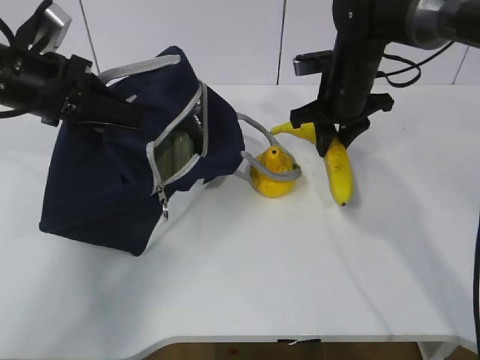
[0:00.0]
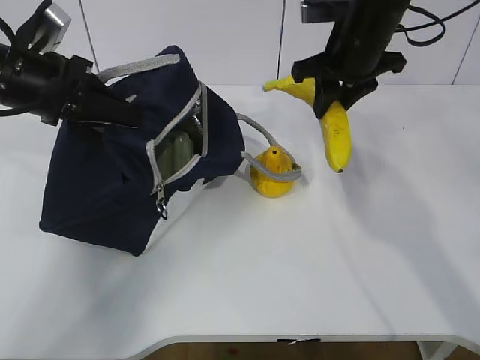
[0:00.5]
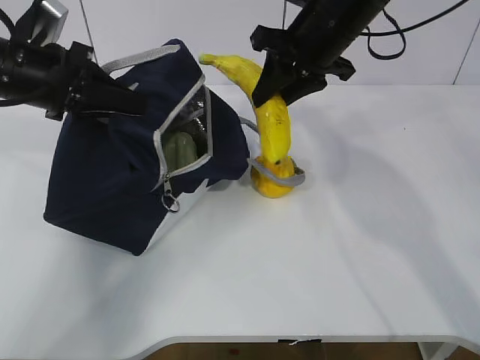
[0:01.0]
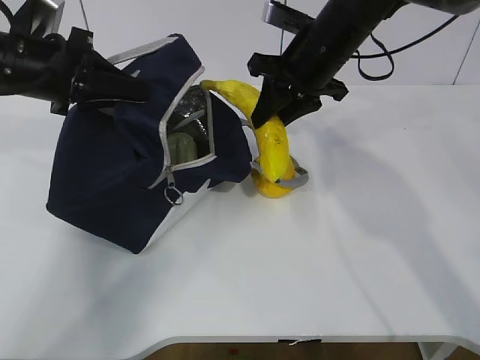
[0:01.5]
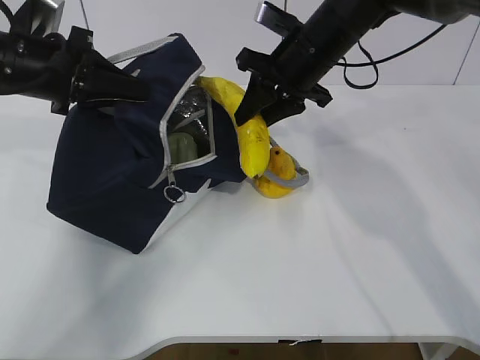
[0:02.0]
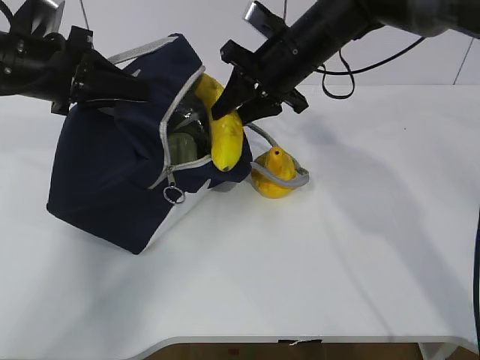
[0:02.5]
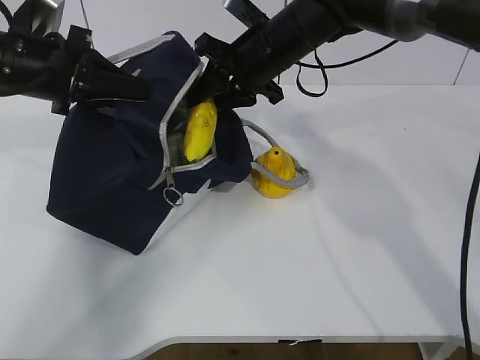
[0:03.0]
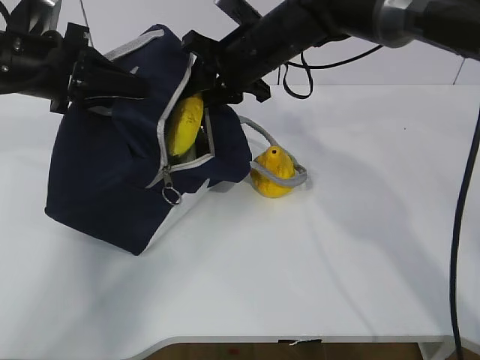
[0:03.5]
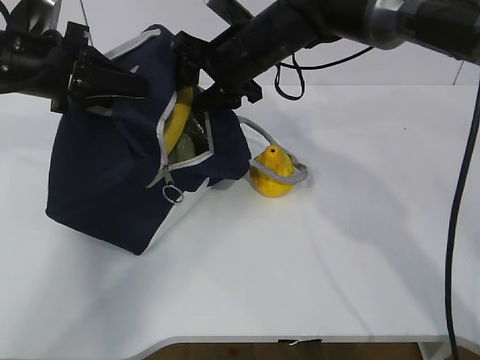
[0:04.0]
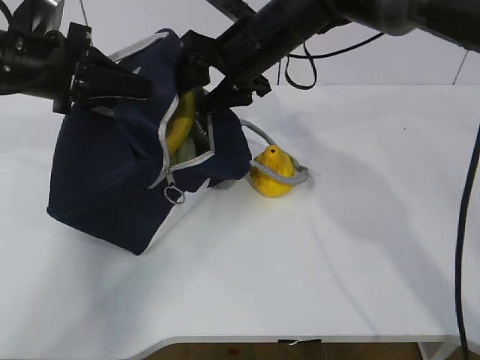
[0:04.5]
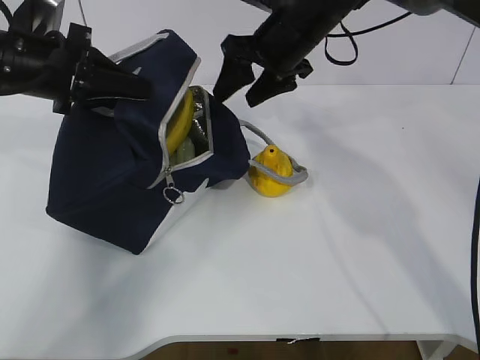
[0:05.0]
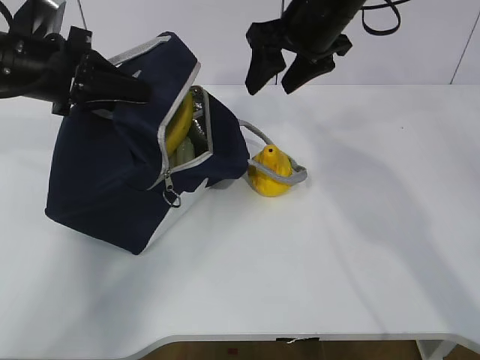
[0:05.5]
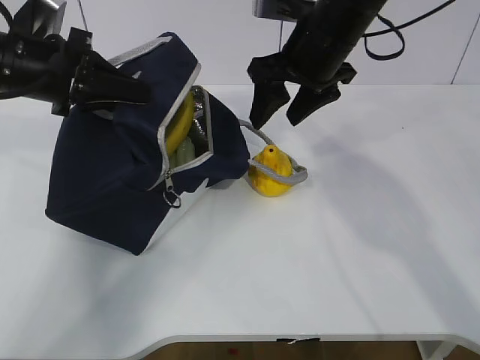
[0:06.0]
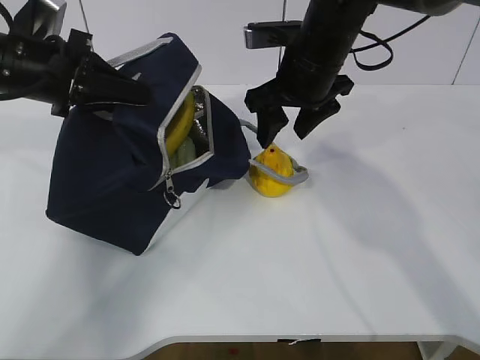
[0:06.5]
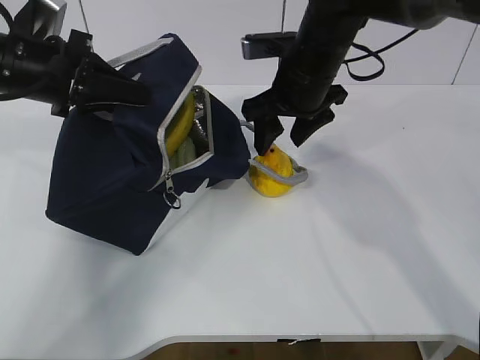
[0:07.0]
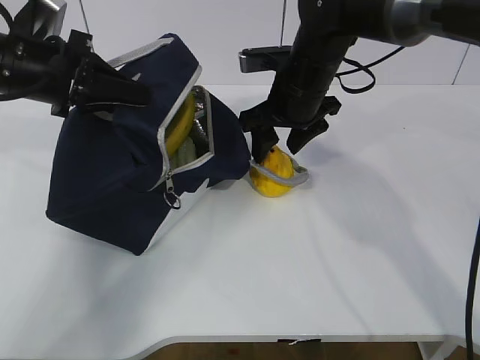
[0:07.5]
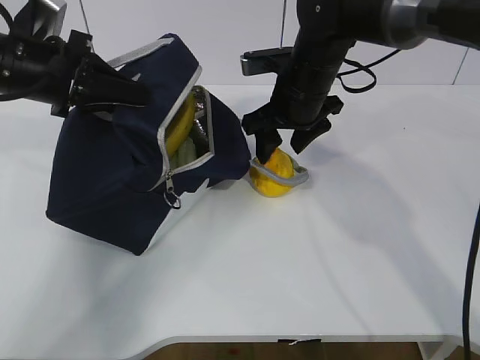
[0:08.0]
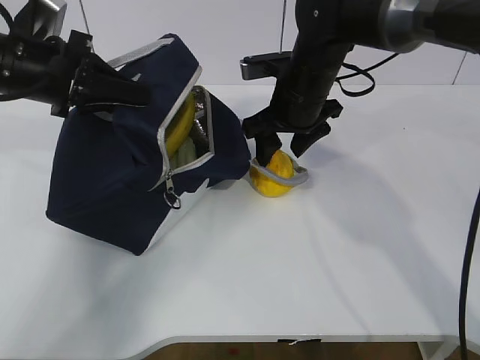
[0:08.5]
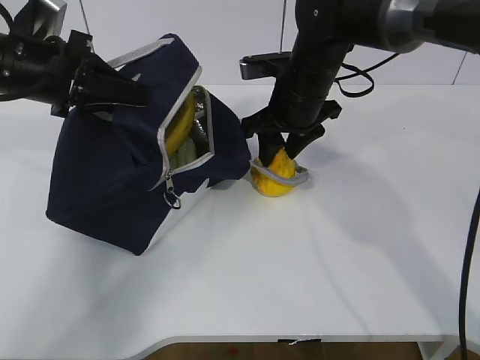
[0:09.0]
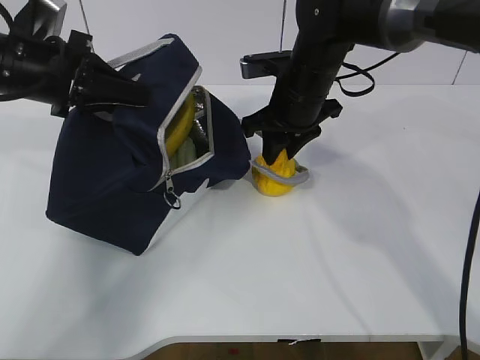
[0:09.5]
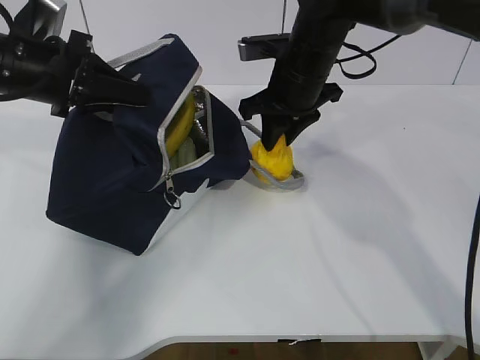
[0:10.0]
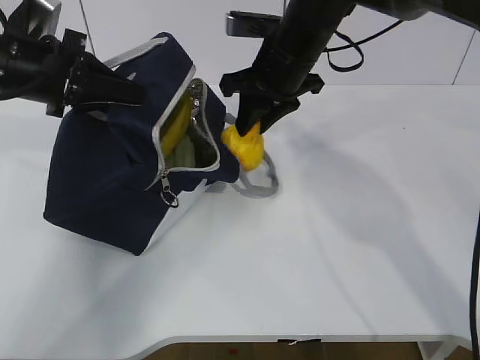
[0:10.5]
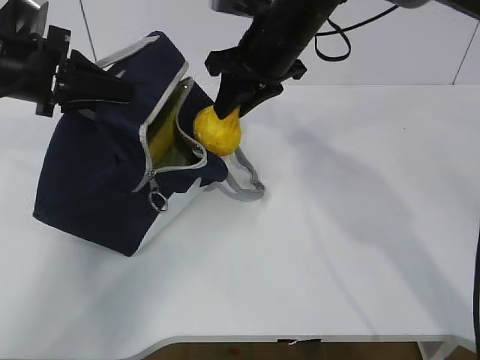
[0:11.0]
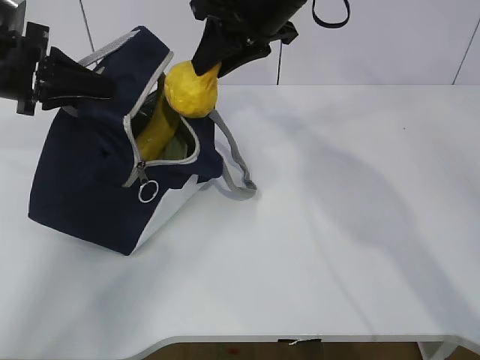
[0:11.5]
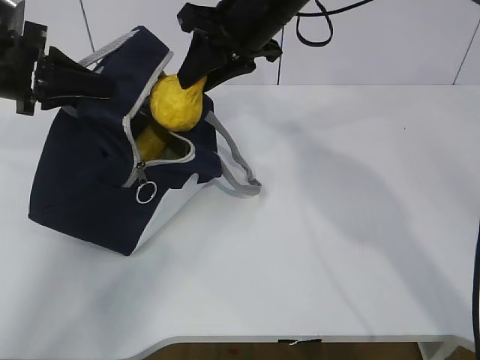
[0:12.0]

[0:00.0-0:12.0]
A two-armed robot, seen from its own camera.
Step, 0:00.0 to 0:02.5: Grab the pear with your right hand.
Step, 0:06.5 to 0:07.5: Grab the lunch bag with your right hand.
Step, 0:08.0 to 0:09.5: Move the lunch bag to the right.
0:00.0 to 0:02.0: The right gripper moves upward and to the left, some 10 cm.
0:02.0 to 0:04.0: The right gripper is displaced to the left by roughly 5 cm, and opens up.
0:04.0 to 0:06.0: The right gripper shifts approximately 5 cm to the right.
0:06.0 to 0:08.0: The right gripper moves downward, some 5 cm.
0:08.0 to 0:10.0: The right gripper closes up.
0:10.0 to 0:12.0: The right gripper moves upward, some 5 cm.

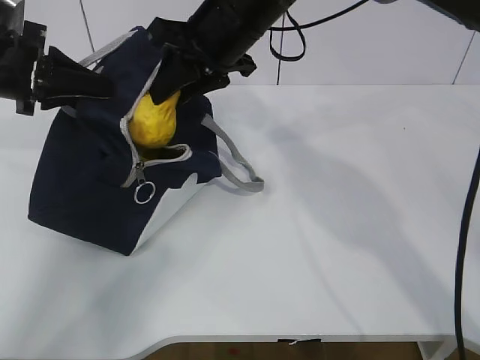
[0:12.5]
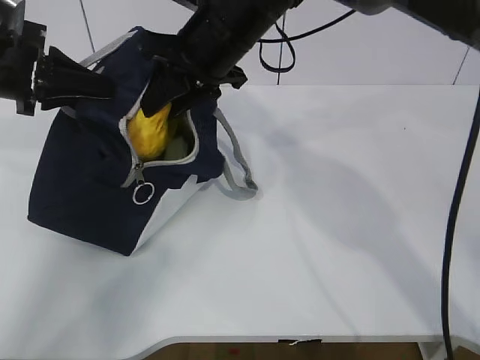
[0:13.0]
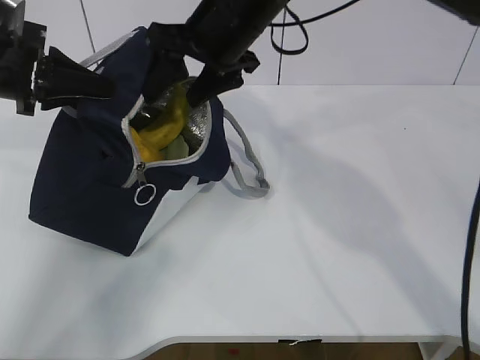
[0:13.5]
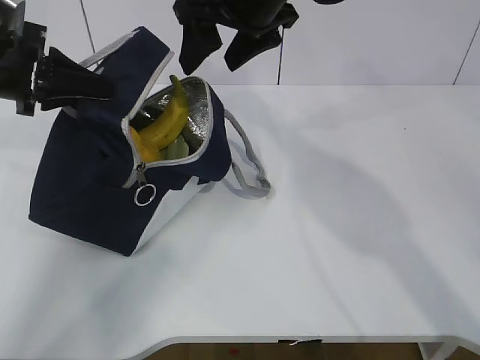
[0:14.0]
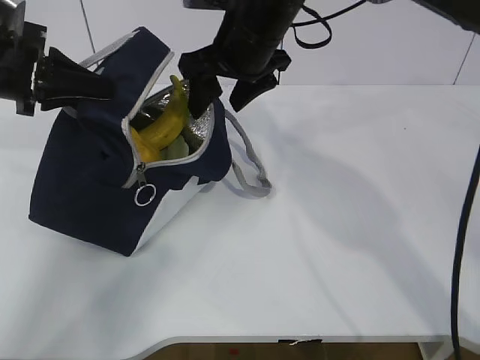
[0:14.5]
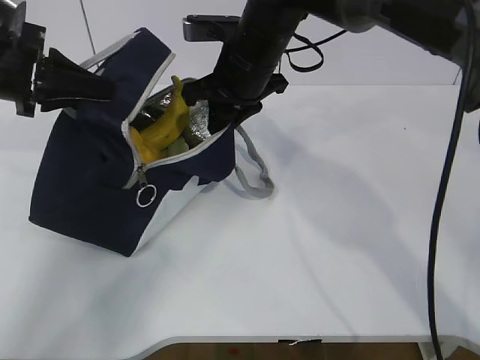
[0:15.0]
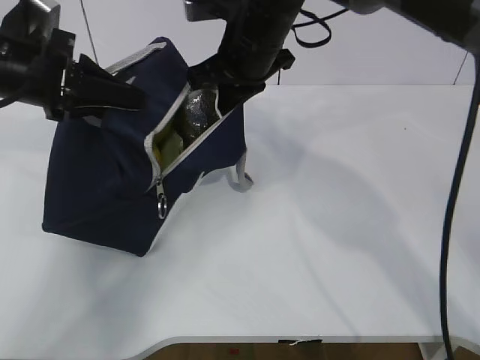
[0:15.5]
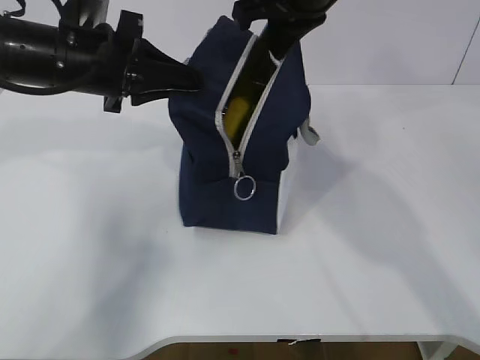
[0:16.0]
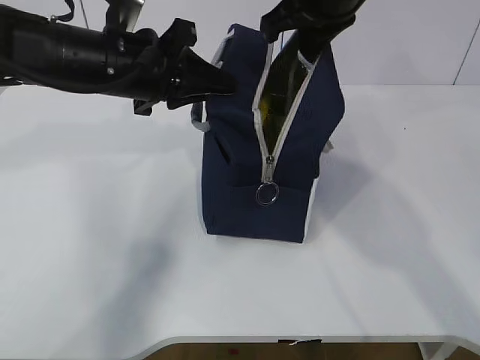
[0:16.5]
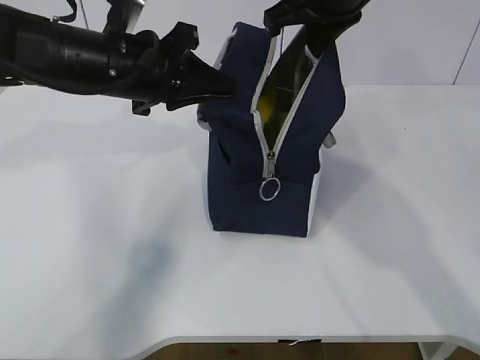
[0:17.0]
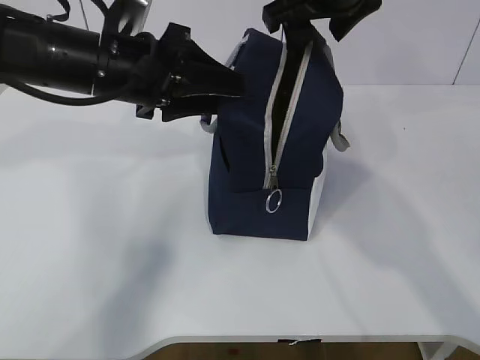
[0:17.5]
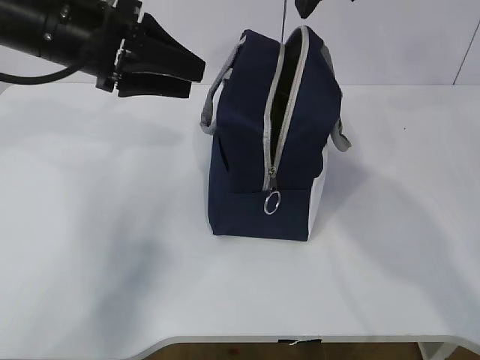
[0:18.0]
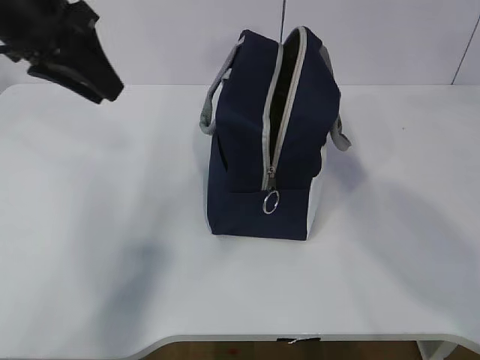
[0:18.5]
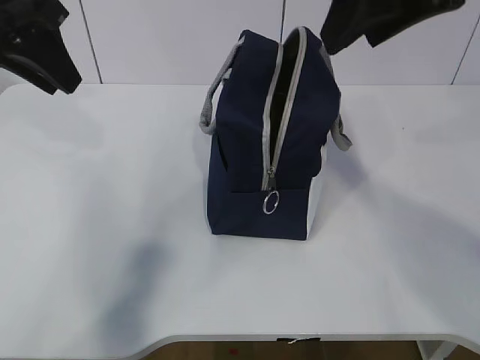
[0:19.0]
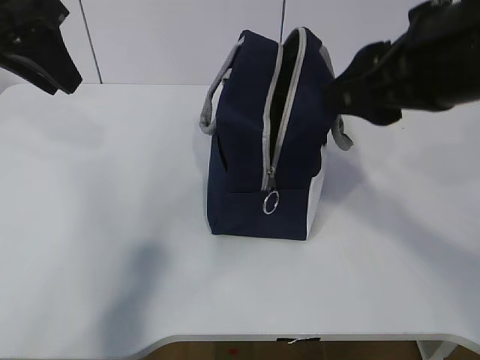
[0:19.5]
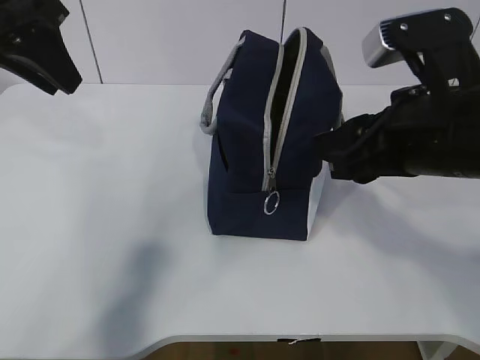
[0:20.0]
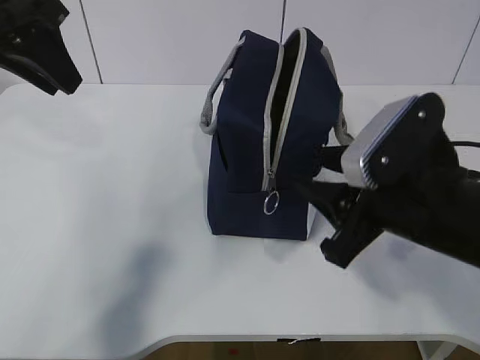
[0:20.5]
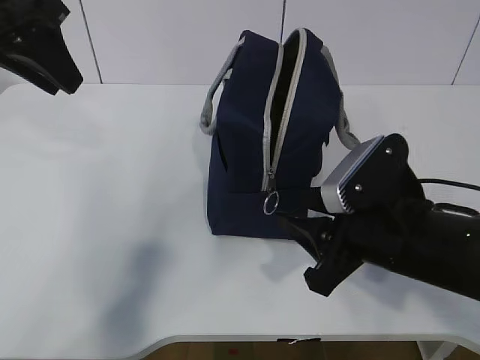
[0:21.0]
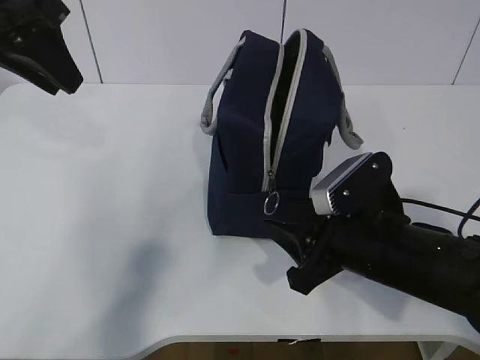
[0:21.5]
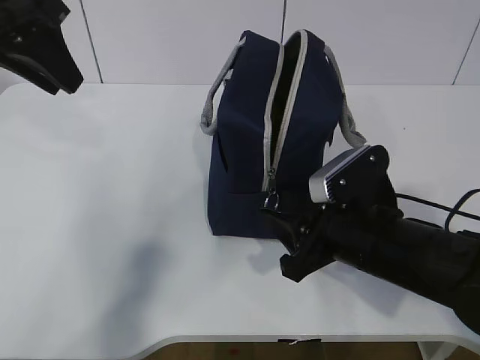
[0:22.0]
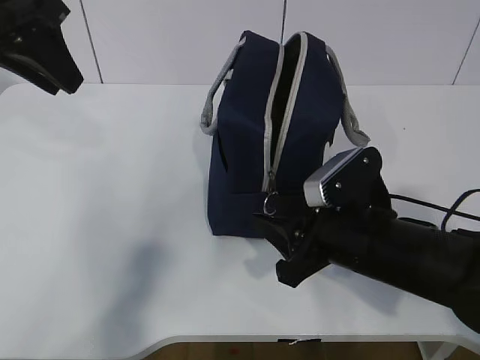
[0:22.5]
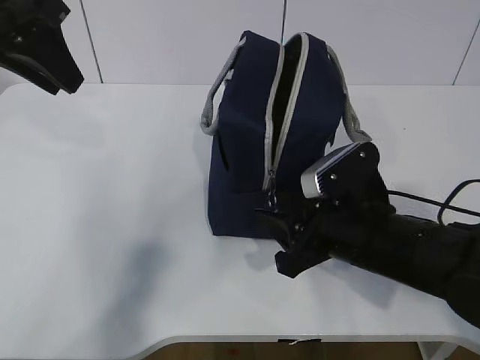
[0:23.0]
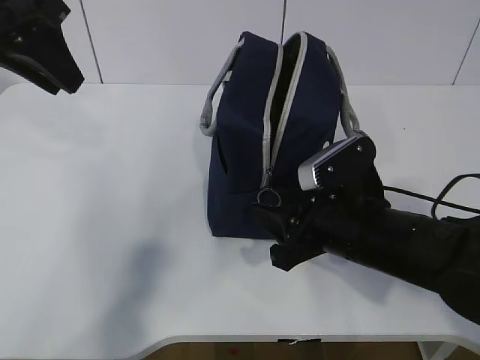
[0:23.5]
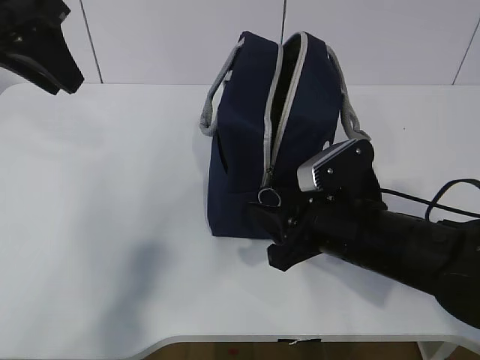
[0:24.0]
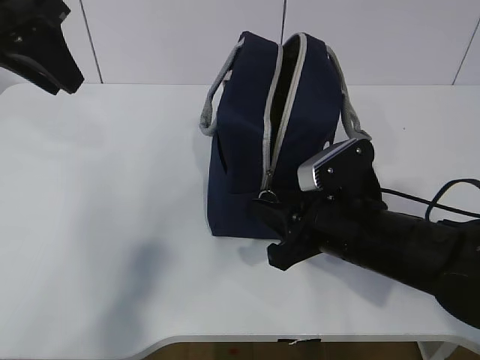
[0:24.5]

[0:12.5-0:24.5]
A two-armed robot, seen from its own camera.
Step, 0:12.5 to 0:22.5: Grab the lunch bag with your left hand.
0:12.5 to 0:14.5: The right gripper opens up.
0:14.5 to 0:16.5: The right gripper is displaced upward and to the right by approximately 10 cm, and closes up; the left gripper moves to the right, approximately 15 cm.
0:16.5 to 0:18.5: The right gripper travels upward and backward by about 15 cm, and opens its fingers, while the left gripper shifts some 10 cm to the left and upward, and opens its fingers.
0:18.5 to 0:20.5: The right gripper shifts approximately 25 cm downward.
0:20.5 to 0:22.5: The right gripper goes approximately 5 cm downward.
0:22.5 to 0:24.5: The grippers stay close to where they were, moving slightly.

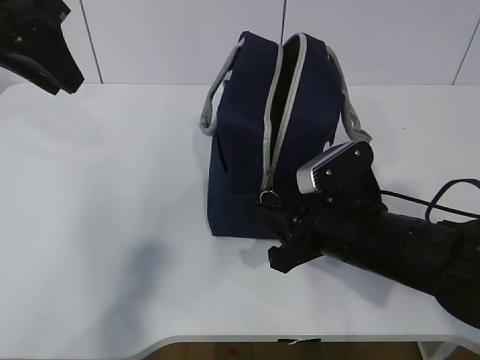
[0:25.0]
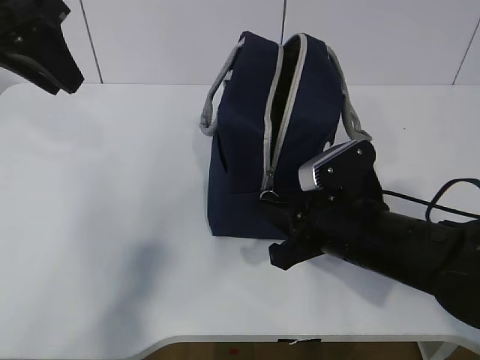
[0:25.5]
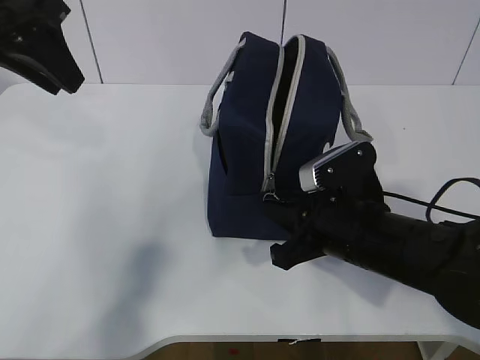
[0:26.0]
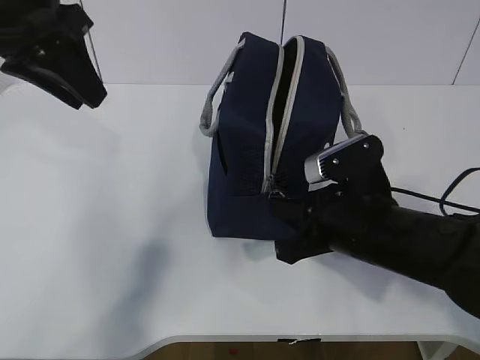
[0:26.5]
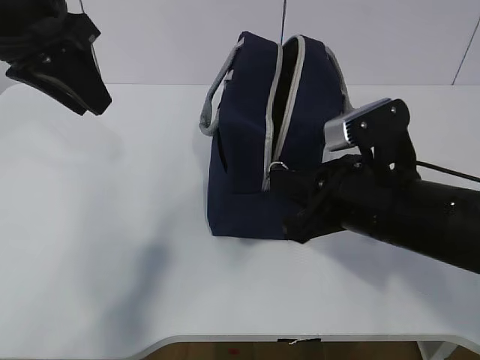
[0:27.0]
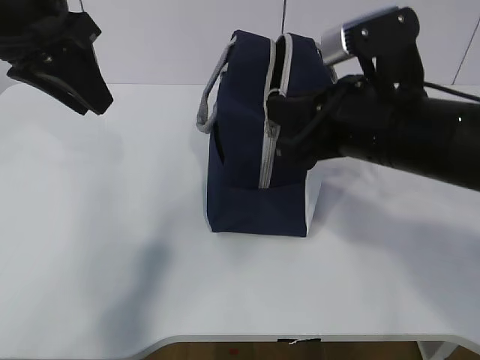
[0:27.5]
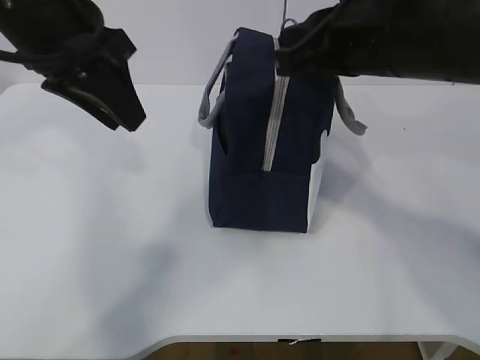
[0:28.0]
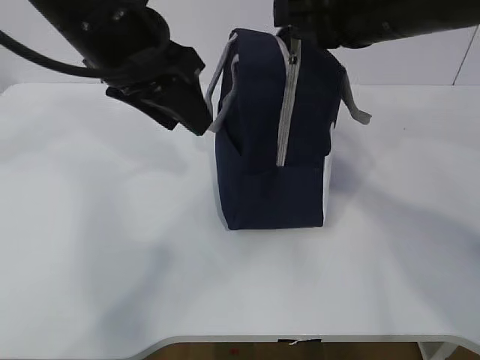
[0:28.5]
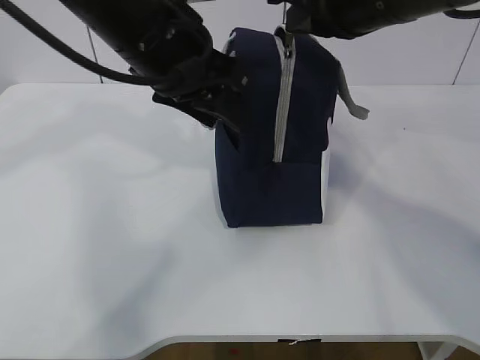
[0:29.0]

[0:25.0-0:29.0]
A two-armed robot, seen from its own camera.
0:25.0 to 0:27.0: The right gripper goes about 5 cm upward, and closes.
0:27.0 to 0:29.0: The right gripper is displaced upward and forward by some 15 cm, while the left gripper travels to the right by about 10 cm, and opens its fingers.
